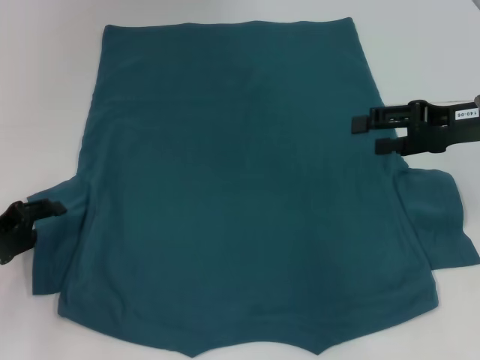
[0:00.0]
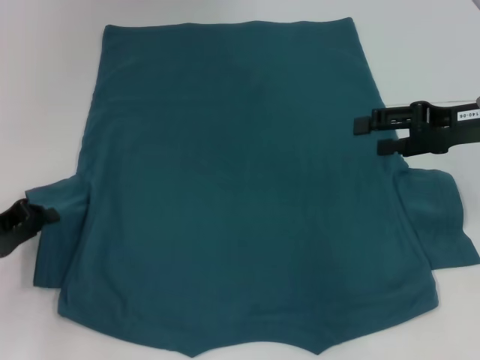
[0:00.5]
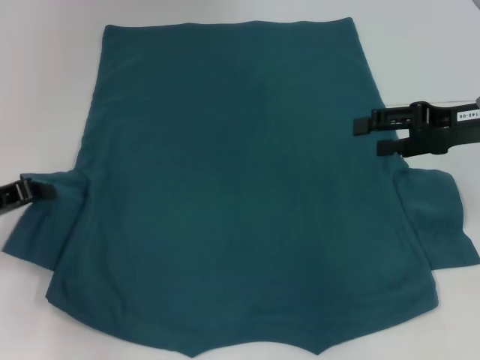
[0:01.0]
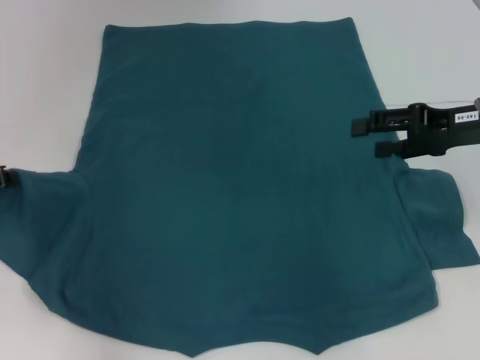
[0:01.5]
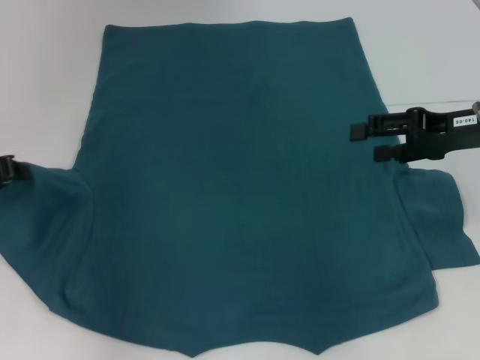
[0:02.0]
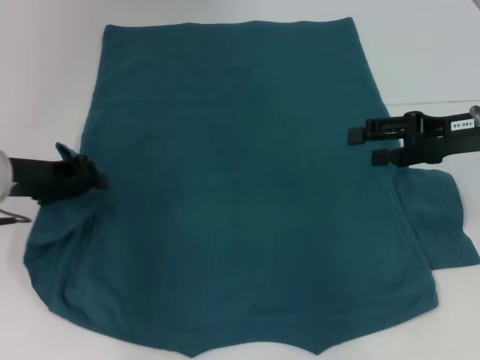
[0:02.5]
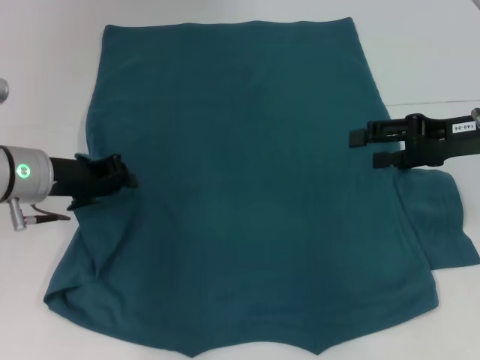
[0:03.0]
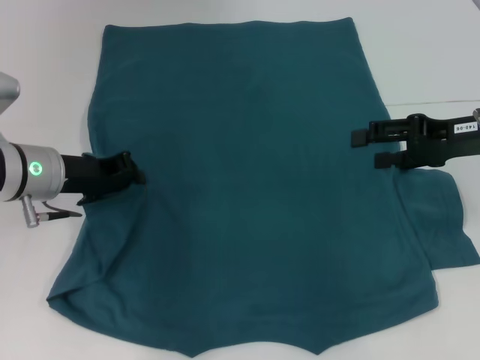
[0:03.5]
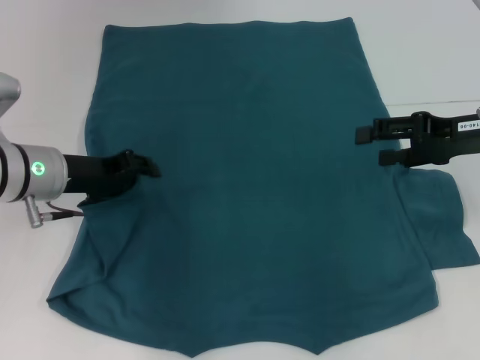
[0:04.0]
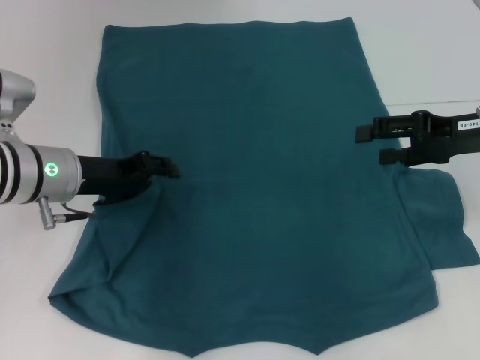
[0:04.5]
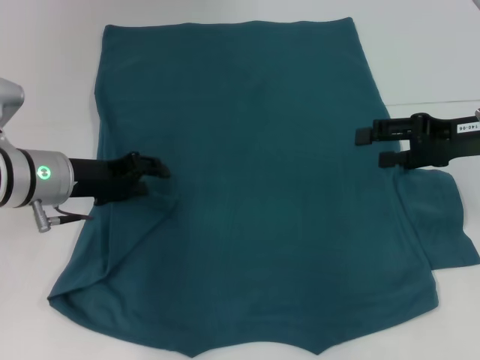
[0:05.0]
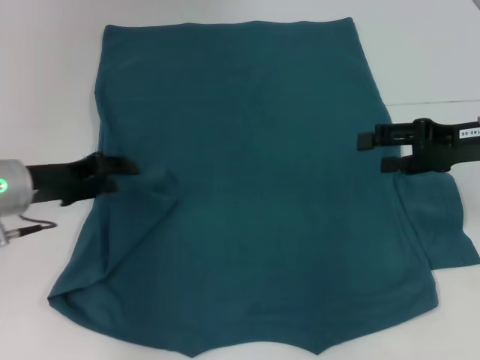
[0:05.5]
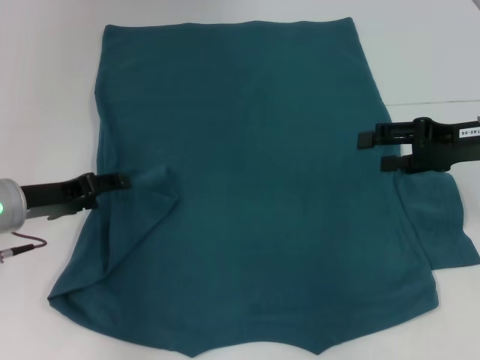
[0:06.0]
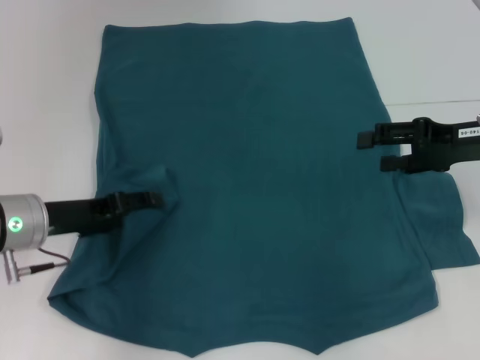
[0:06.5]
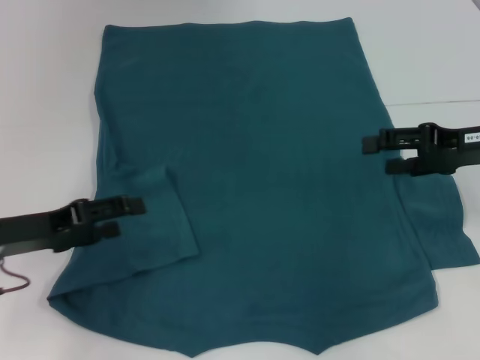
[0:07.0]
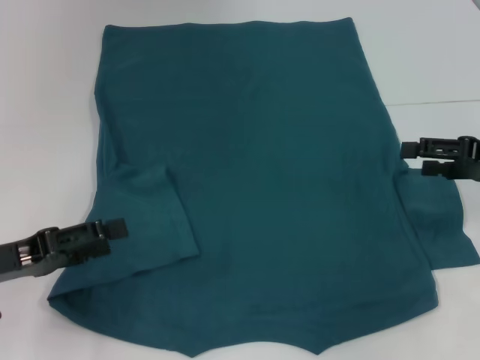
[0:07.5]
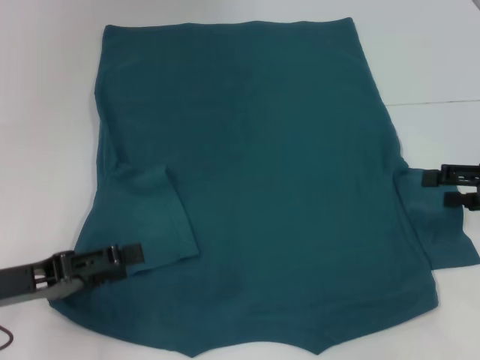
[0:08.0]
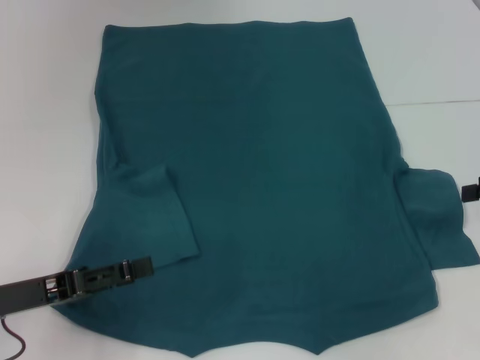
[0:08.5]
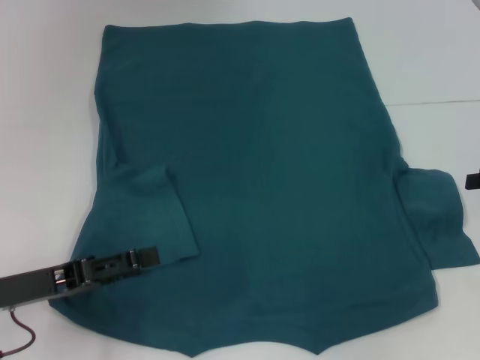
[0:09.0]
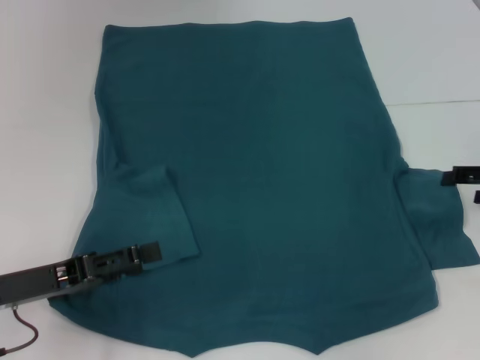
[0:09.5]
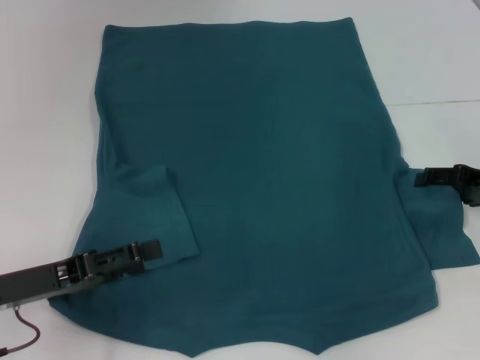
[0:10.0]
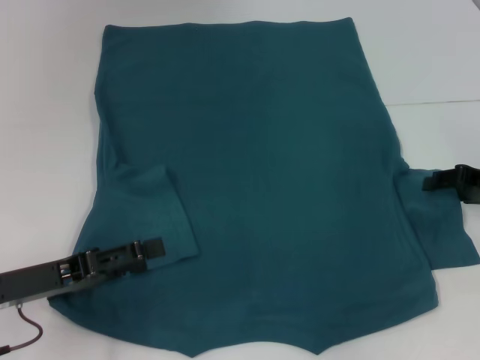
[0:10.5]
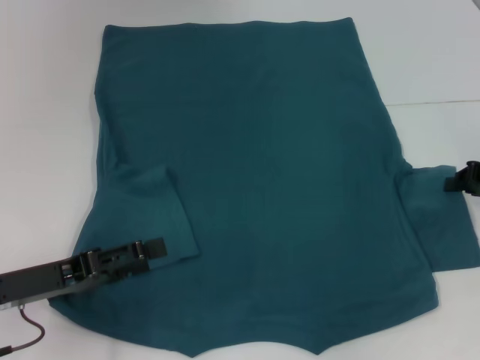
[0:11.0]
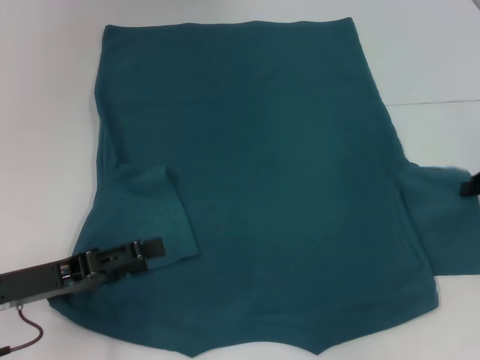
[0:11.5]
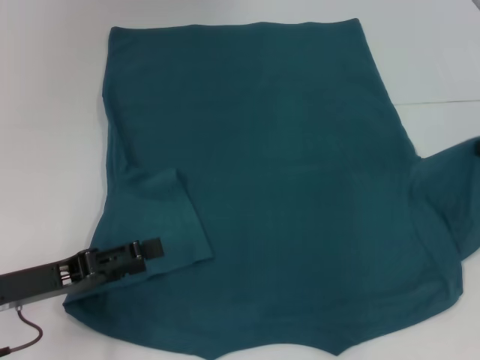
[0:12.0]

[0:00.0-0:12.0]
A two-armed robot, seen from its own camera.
Step, 0:00.0 to 0:06.5: Fold the bottom left sleeve with your left hand.
0:00.0 to 0:02.0: The left gripper is displaced upward and forward by approximately 10 cm, and closes up.
0:02.0 to 0:04.0: The left gripper heads to the right, covering about 10 cm.
0:04.0 to 0:06.0: The left gripper ends up about 5 cm from where it was, and opens up.
0:06.0 to 0:08.0: The left gripper shifts some 10 cm backward. Meanwhile the right gripper goes approximately 5 cm to the right.
0:08.0 to 0:10.0: The right gripper changes place by approximately 5 cm.
0:10.0 to 0:12.0: The right gripper is displaced upward by some 5 cm, and closes.

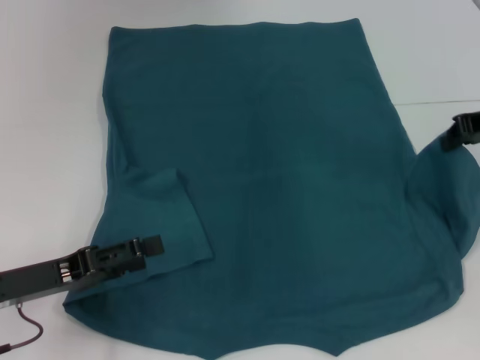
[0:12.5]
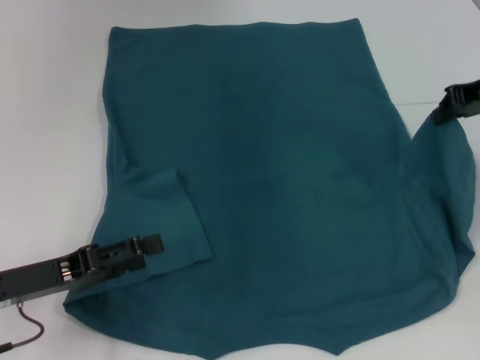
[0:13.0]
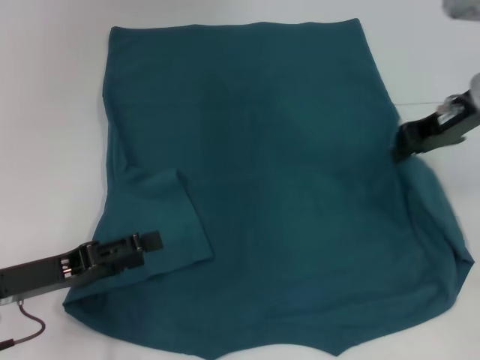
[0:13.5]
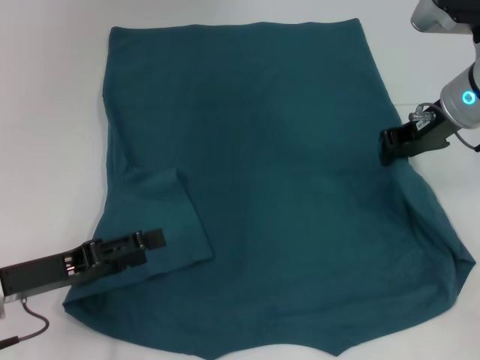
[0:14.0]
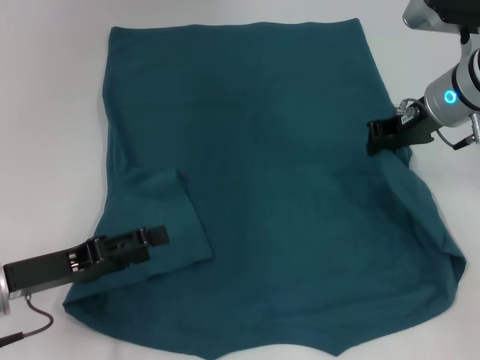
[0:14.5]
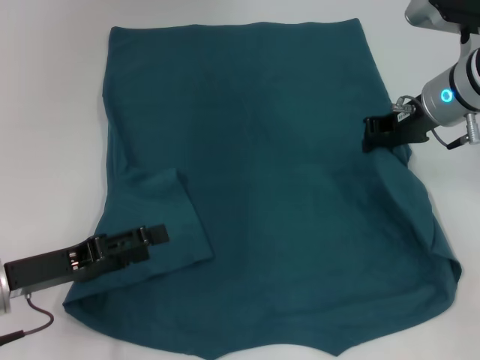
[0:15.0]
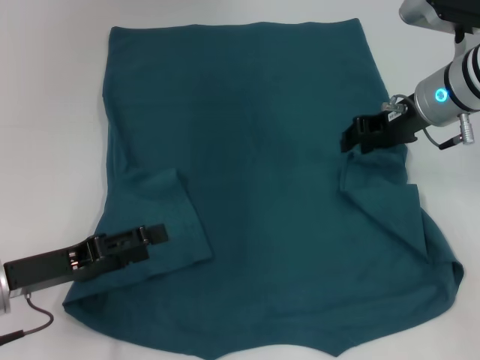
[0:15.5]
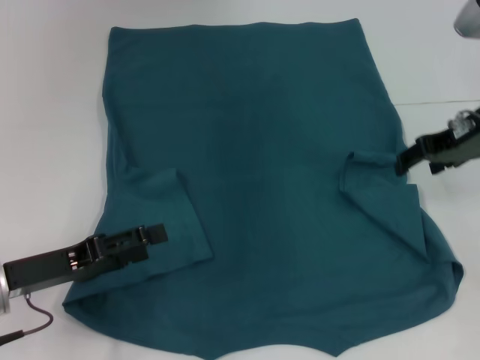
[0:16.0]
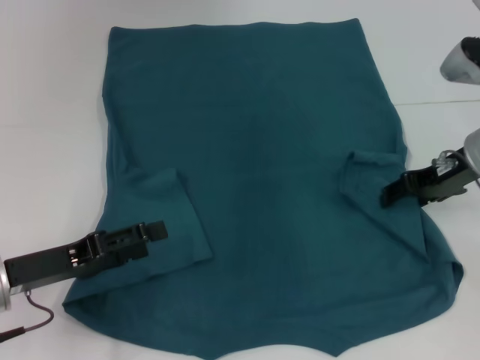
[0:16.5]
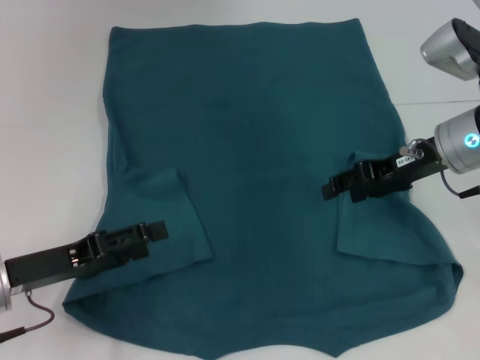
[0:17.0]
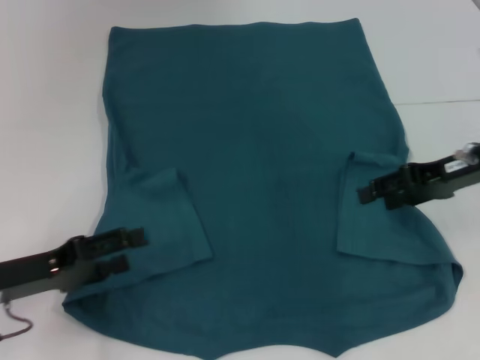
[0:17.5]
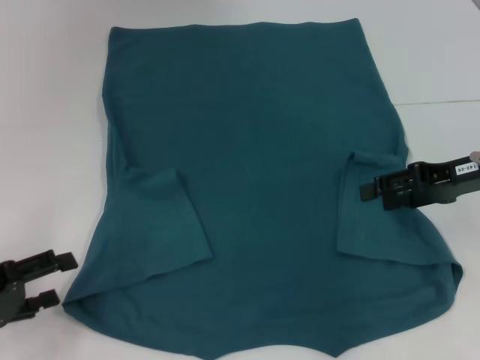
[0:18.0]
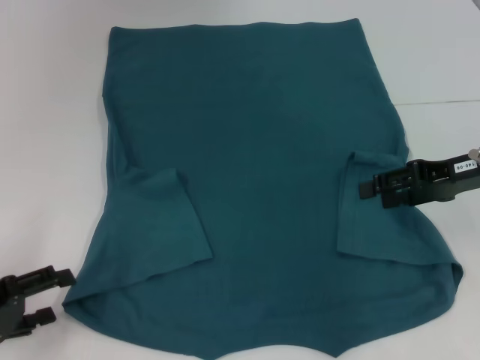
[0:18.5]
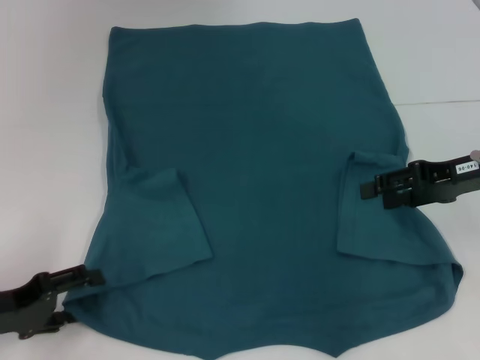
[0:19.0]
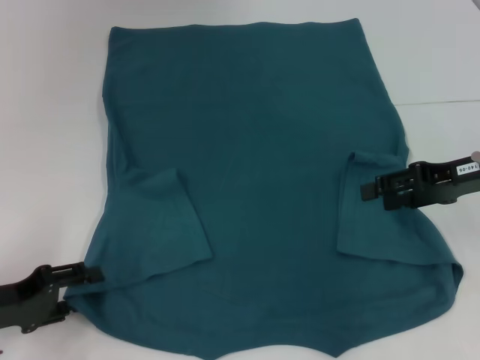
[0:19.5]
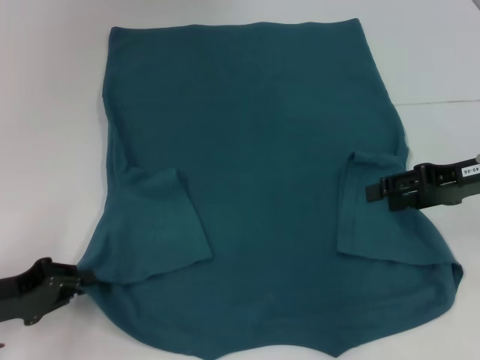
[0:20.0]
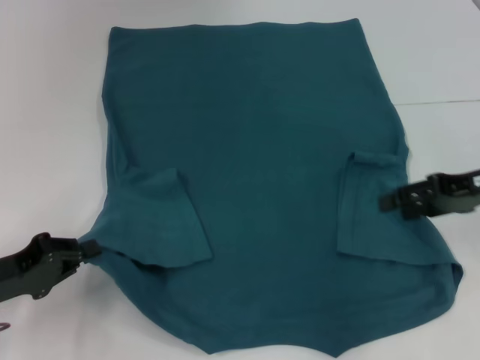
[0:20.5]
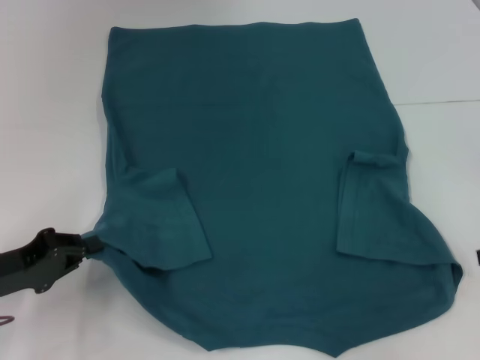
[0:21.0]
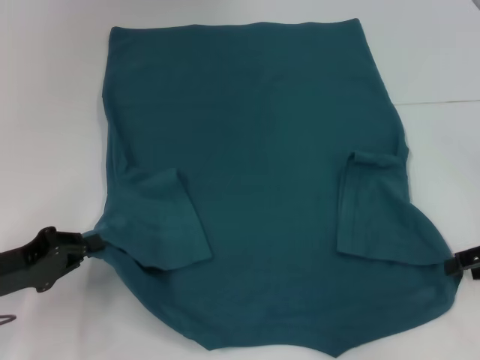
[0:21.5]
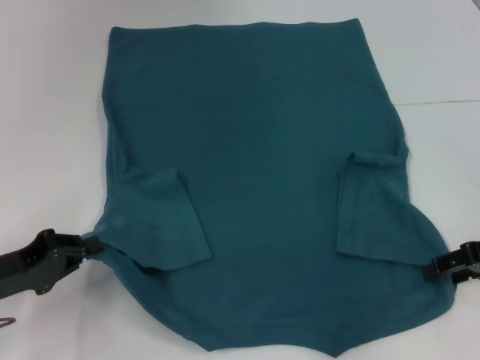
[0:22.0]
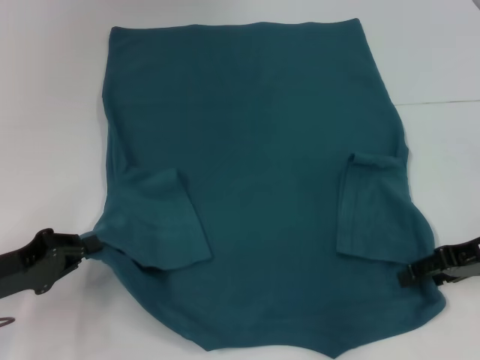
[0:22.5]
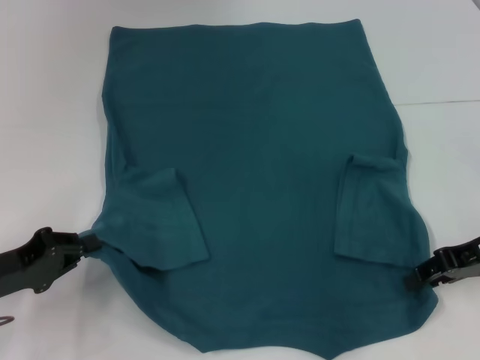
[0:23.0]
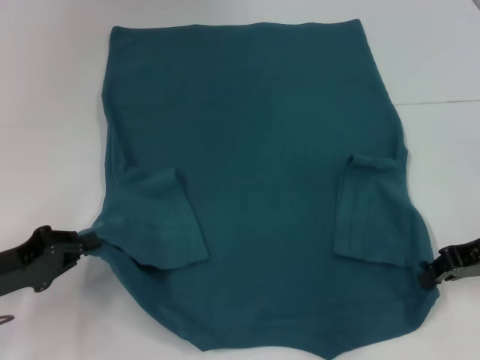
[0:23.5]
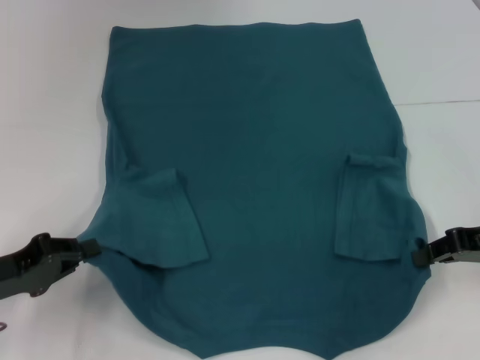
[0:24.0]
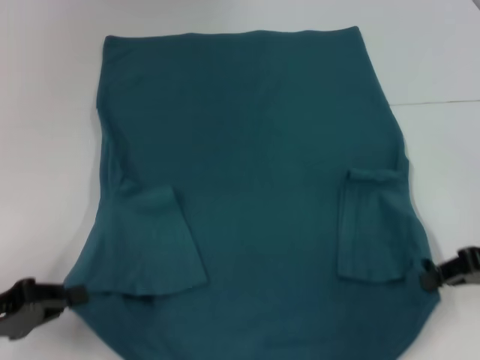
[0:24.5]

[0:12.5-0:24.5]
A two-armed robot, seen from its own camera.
Step, 0:12.5 to 0:16.5: Fold the bottom right sleeve to the right.
Step, 0:17.0 to 0:20.0: Grab the bottom left corner with your left hand.
Step, 0:20.5 to 0:23.5: Grab the bottom right corner with your right hand.
0:12.5 to 0:14.5: The right gripper heads to the left, covering approximately 10 cm.
0:14.5 to 0:16.5: The right gripper changes place by some 5 cm, and opens.
0:16.5 to 0:18.5: The left gripper heads to the left, covering approximately 5 cm, while the right gripper changes place by about 5 cm.
0:18.5 to 0:20.5: The left gripper closes.
0:20.5 to 0:22.5: The right gripper goes to the right and returns, about 10 cm each way.
0:22.5 to 0:24.5: The right gripper closes its fingers.

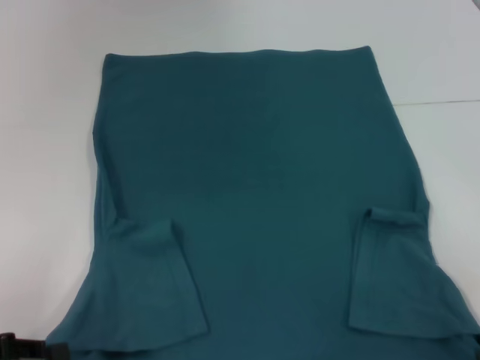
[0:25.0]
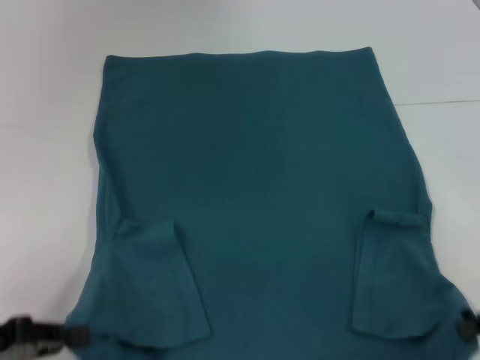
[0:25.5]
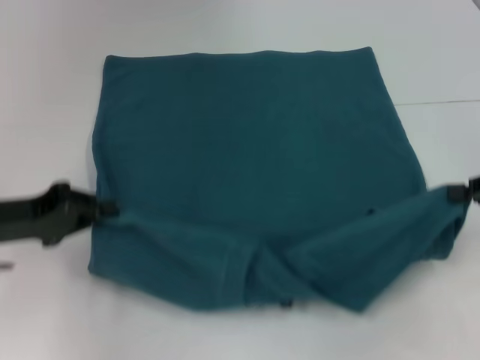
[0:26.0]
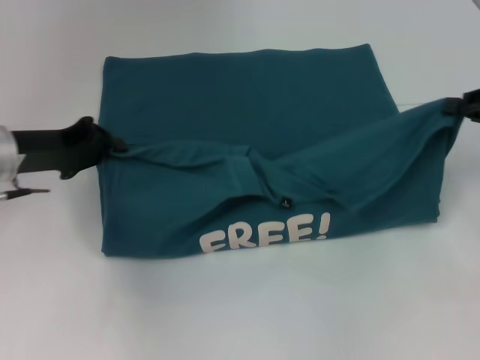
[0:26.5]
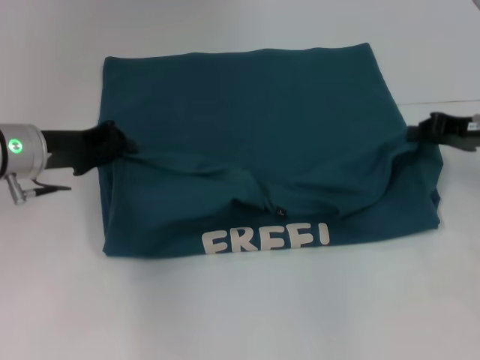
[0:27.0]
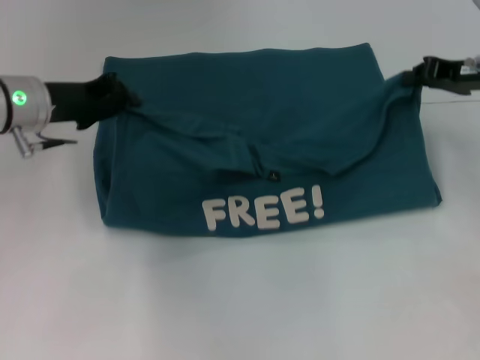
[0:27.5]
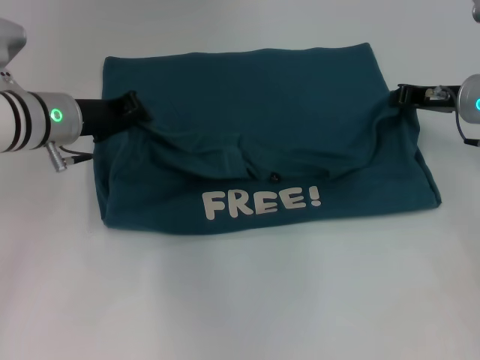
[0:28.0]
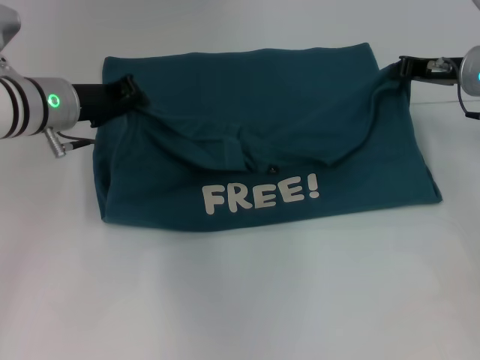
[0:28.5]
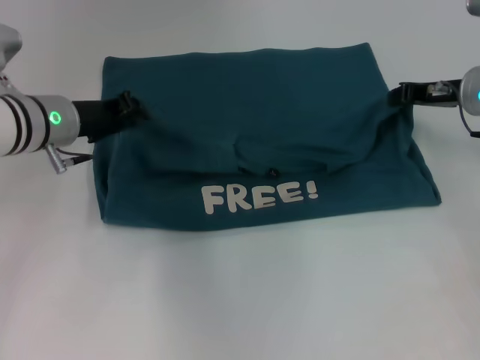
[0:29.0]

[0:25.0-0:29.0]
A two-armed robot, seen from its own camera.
0:25.0 to 0:27.0: The left gripper moves forward and to the right, approximately 20 cm. The right gripper goes approximately 15 cm forward.
0:27.0 to 0:29.0: The right gripper moves forward, approximately 5 cm.
